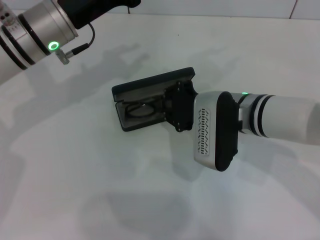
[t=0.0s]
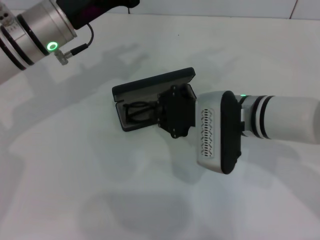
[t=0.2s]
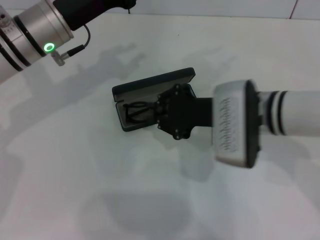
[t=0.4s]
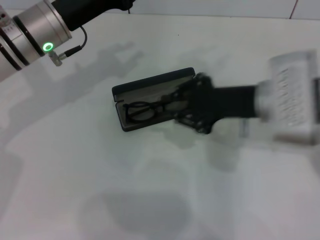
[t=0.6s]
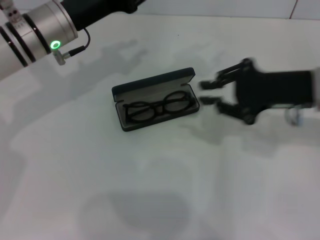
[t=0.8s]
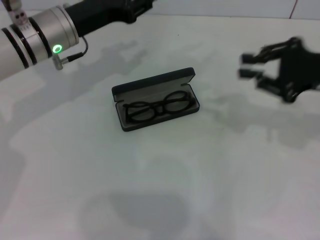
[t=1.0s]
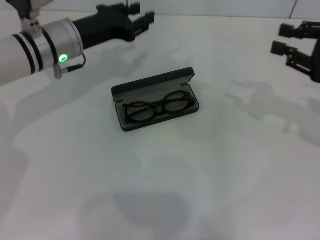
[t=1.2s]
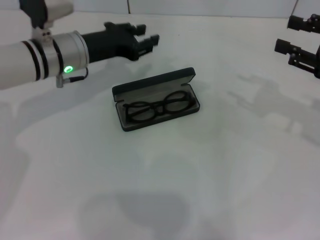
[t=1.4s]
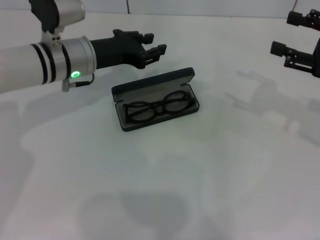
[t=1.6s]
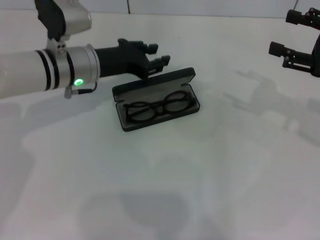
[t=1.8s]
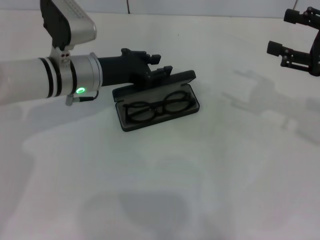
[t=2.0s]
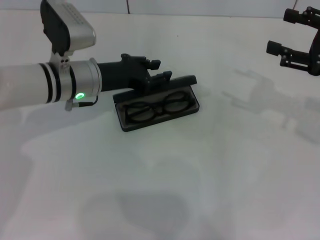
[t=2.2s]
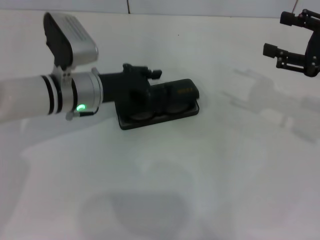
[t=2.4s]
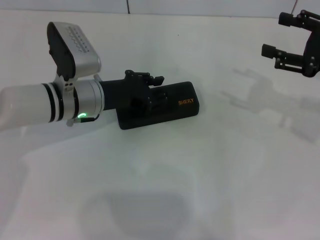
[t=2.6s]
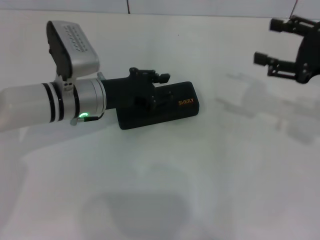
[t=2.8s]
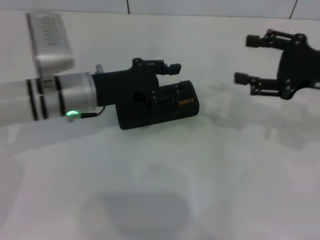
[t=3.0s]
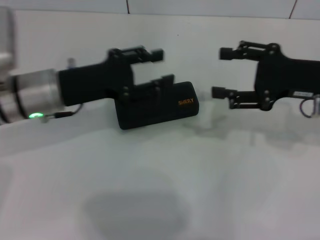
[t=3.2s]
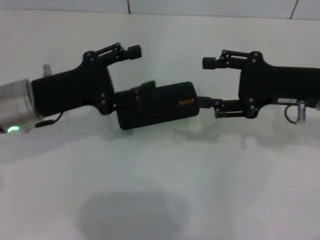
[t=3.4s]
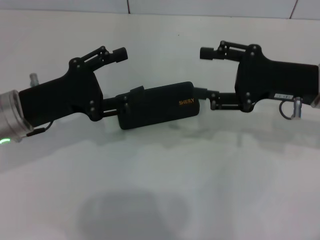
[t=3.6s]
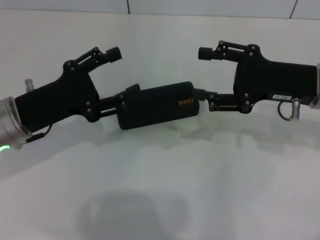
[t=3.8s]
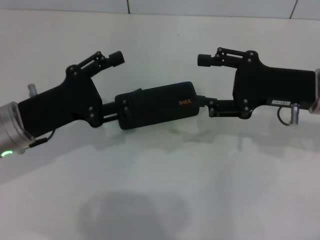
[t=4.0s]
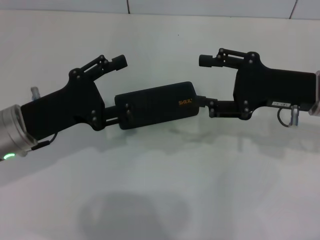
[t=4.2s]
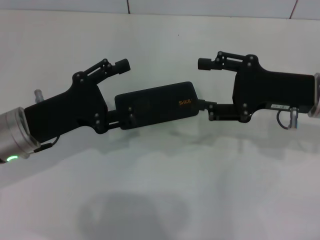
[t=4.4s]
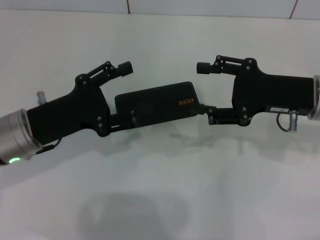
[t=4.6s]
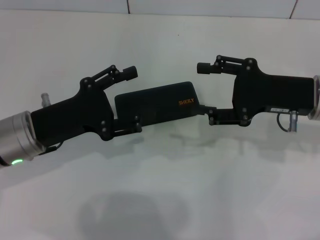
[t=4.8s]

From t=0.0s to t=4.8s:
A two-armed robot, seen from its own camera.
Step, from t=0.2s to t=2.4s: Close the glasses case with your left hand.
From t=0.0s to t=1.6s: The left gripper moves downward, about 5 cm. The right gripper travels to the right by approximately 20 cm, and opens.
From t=1.6s to t=3.2s: The right gripper travels to the left by some 5 cm. The left gripper is displaced backward by roughly 10 cm.
From t=3.2s to t=4.8s: The left gripper heads backward, covering about 5 cm, and opens its fingers.
